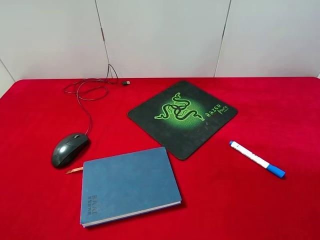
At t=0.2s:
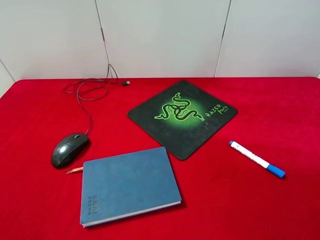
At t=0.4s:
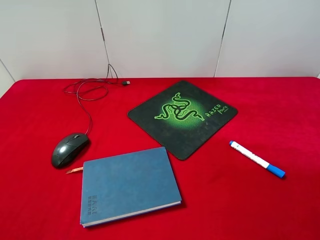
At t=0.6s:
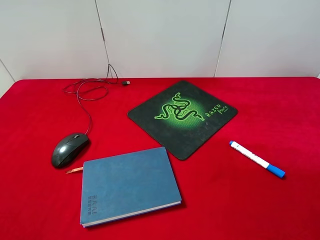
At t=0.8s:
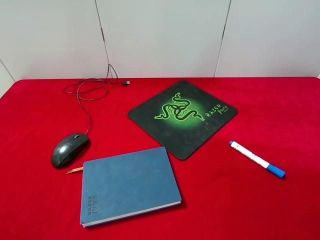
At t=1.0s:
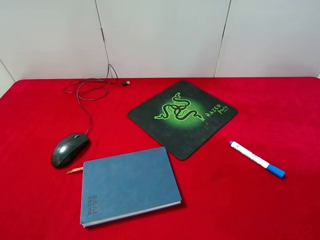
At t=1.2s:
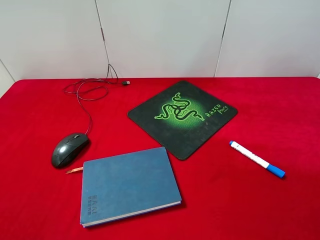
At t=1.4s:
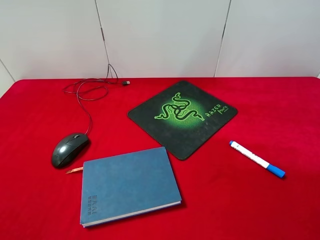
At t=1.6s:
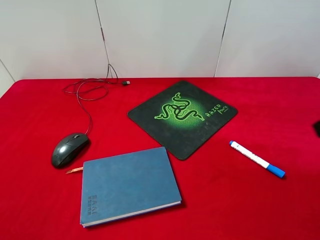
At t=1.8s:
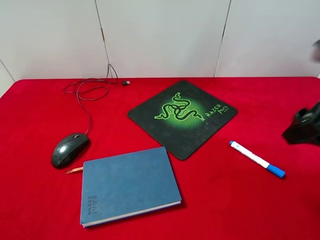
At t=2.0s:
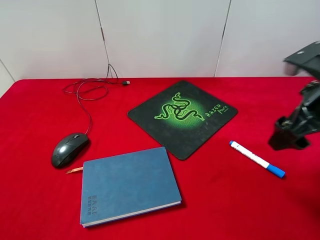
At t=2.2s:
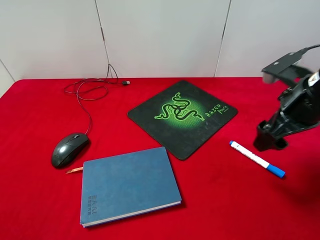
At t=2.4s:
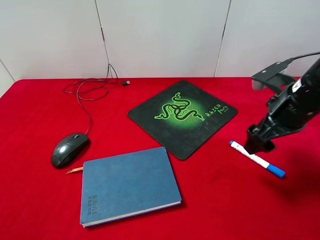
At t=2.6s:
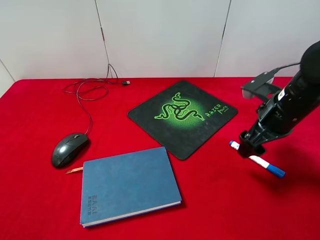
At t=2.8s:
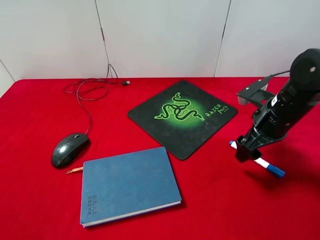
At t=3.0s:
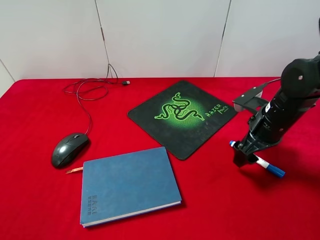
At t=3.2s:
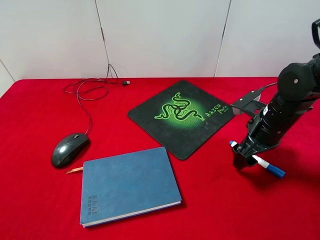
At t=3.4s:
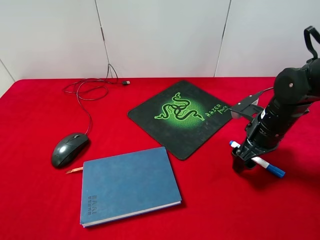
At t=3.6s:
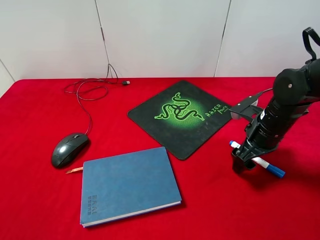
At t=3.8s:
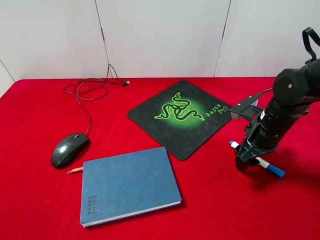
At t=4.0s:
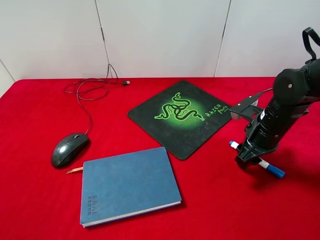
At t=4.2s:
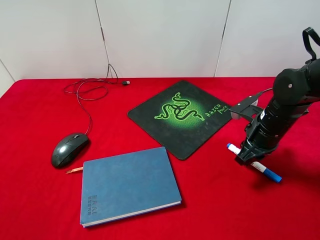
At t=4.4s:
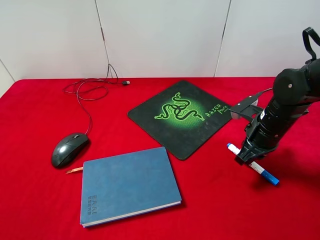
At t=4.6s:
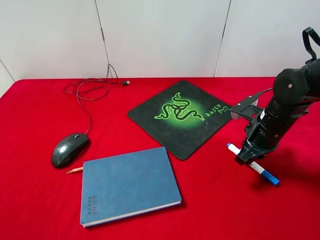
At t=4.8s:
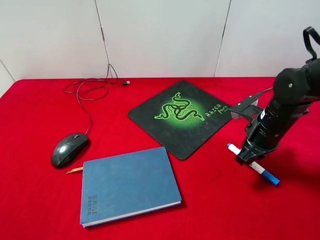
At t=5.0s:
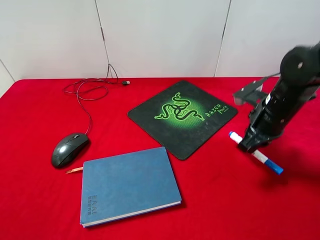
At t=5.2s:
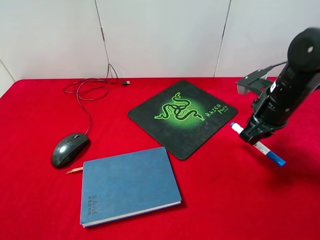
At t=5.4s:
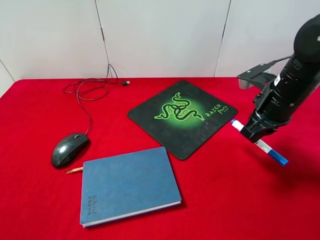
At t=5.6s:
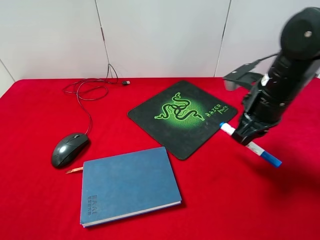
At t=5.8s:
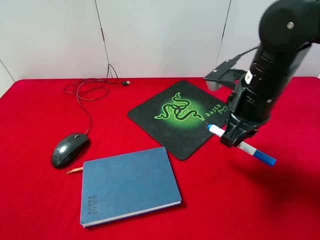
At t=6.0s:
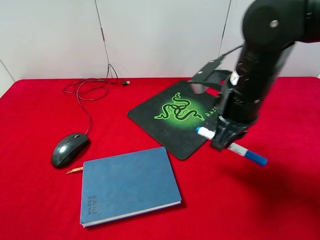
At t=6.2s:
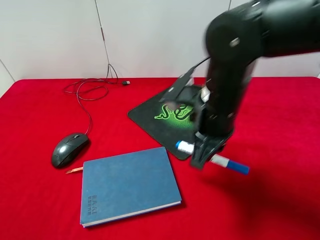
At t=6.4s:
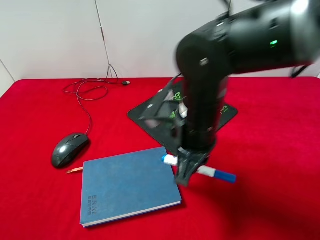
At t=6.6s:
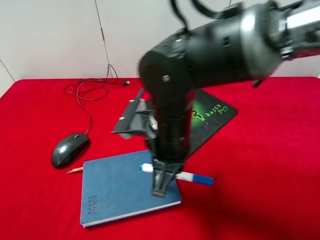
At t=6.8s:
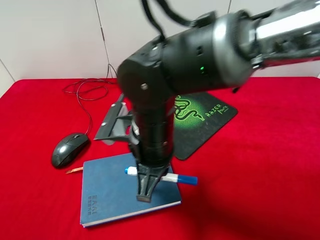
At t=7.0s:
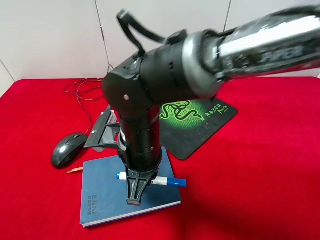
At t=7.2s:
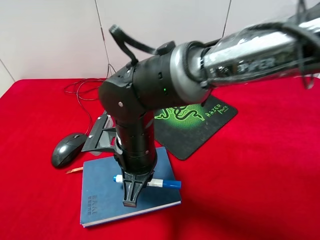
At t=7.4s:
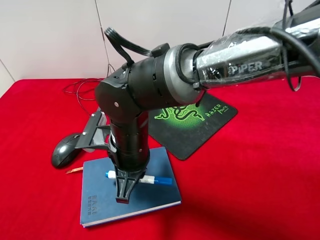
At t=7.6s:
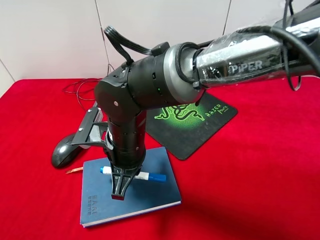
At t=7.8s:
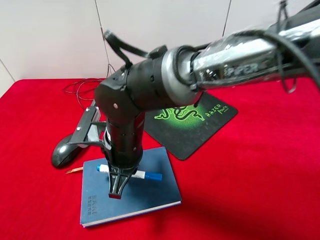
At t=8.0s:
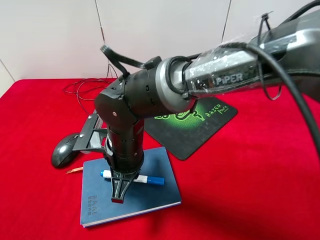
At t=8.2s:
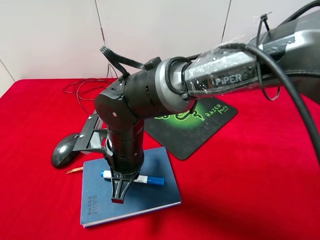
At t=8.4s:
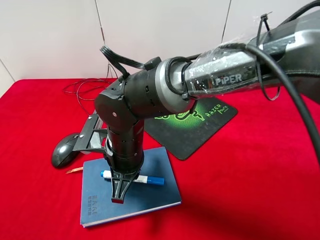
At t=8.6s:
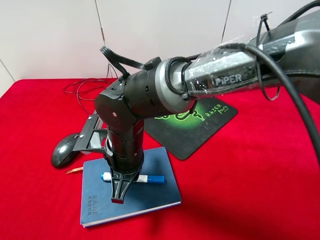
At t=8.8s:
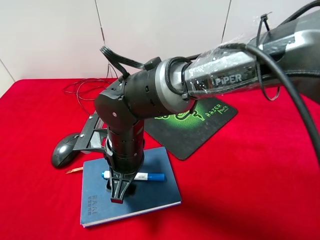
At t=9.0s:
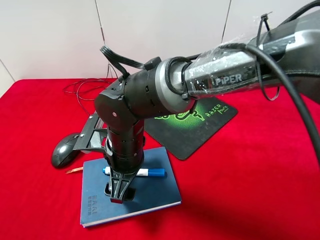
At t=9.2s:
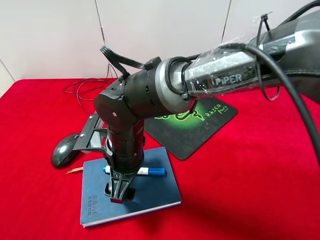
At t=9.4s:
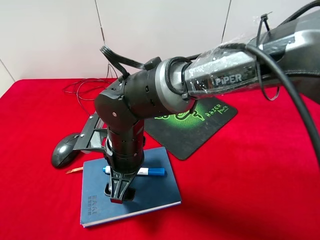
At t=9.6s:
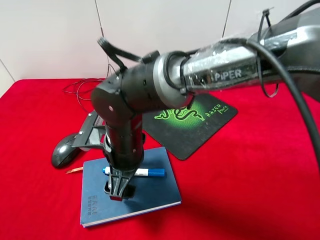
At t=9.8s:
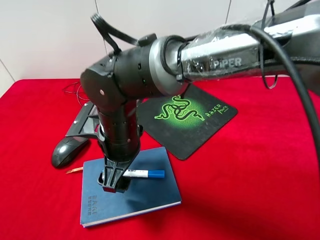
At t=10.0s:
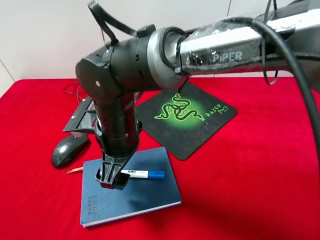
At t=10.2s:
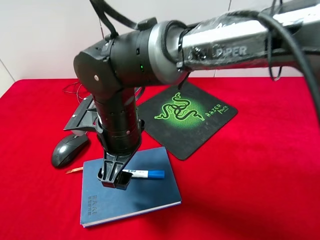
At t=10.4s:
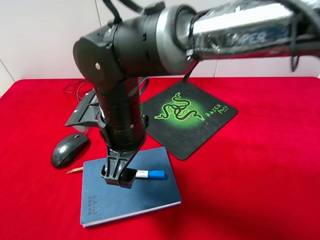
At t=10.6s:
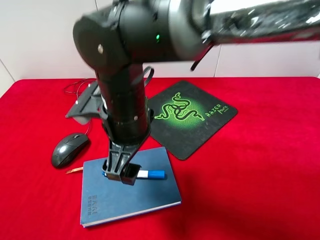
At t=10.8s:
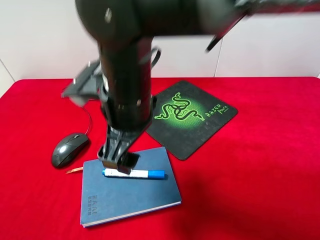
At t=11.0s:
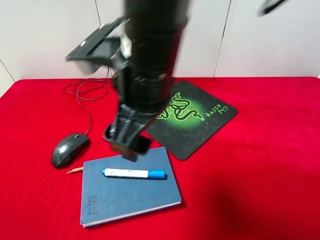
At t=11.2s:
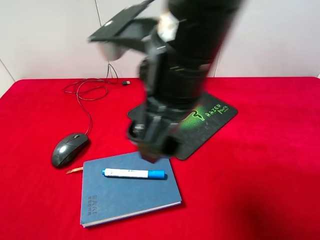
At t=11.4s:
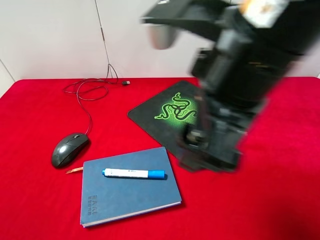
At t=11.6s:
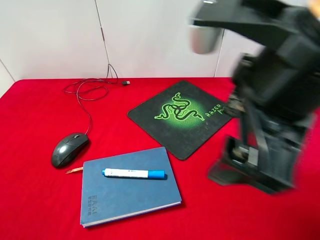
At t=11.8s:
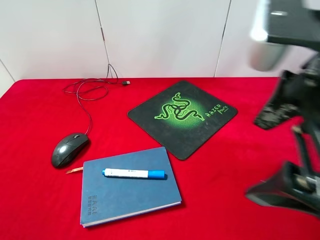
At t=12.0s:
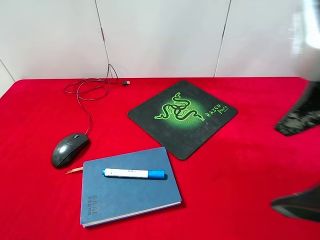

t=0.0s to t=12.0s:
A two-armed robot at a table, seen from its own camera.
Step, t=0.0s to t=5.2s: Pick up the marker pen with right gripper.
Step, t=5.4s to t=9.8s: Place the marker pen on the notebook with right gripper.
t=1.6s to t=3.0s: The right gripper heads downward and forward, covering roughly 20 cm.
t=3.0s to t=4.4s: The right gripper closes.
t=4.4s to t=6.0s: The right gripper travels to the left and upward by approximately 15 cm.
t=6.0s to t=7.6s: The right gripper travels to the left and downward by some 20 cm.
t=7.6s to t=9.0s: The right gripper opens.
t=9.0s to t=10.4s: The right gripper moves upward, approximately 5 cm.
t=10.4s to t=12.0s: The right gripper goes some 30 cm to the right, upward and backward.

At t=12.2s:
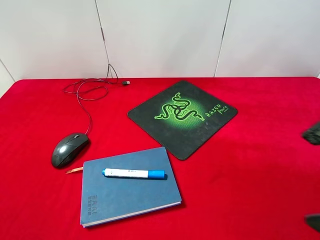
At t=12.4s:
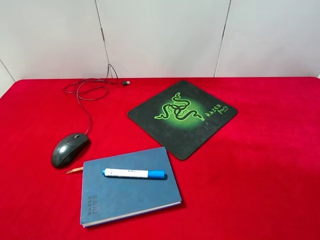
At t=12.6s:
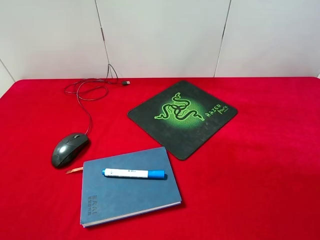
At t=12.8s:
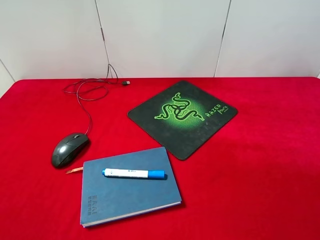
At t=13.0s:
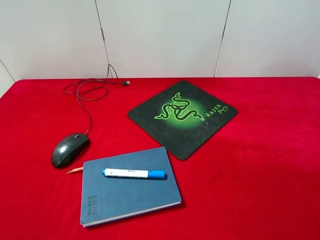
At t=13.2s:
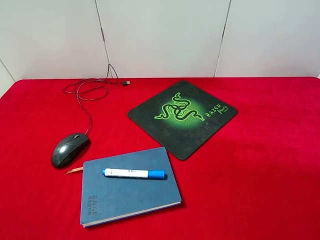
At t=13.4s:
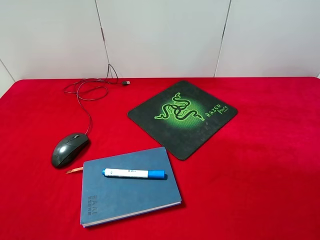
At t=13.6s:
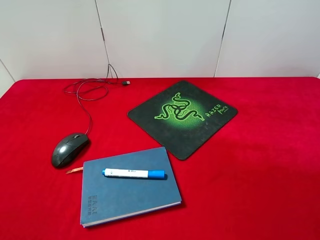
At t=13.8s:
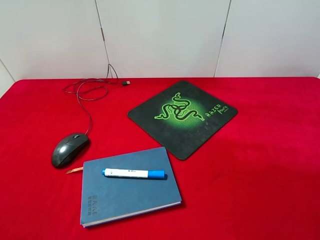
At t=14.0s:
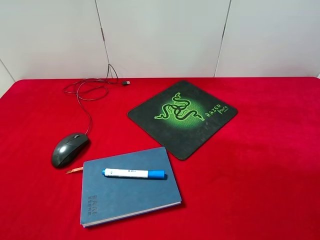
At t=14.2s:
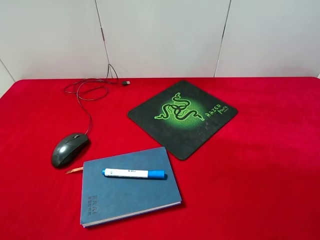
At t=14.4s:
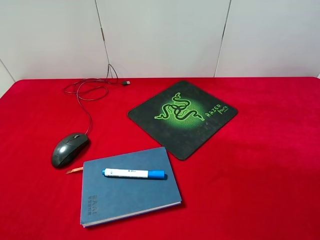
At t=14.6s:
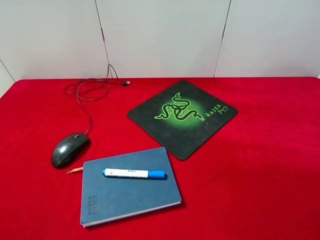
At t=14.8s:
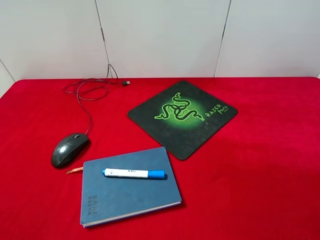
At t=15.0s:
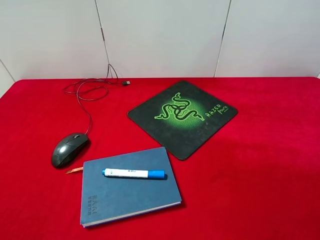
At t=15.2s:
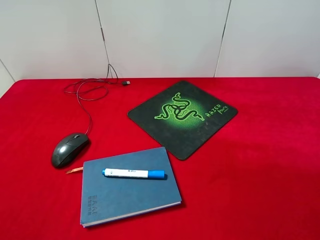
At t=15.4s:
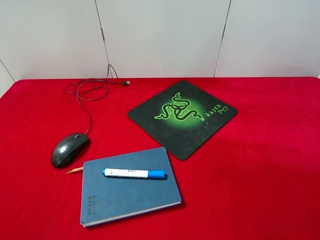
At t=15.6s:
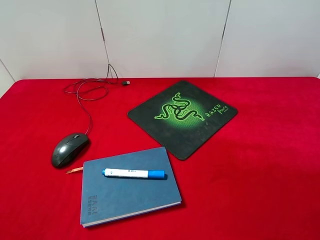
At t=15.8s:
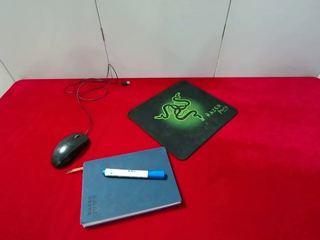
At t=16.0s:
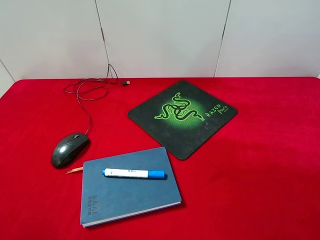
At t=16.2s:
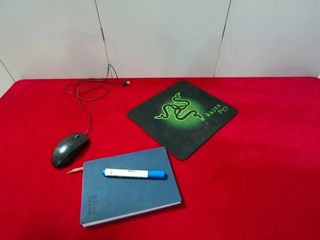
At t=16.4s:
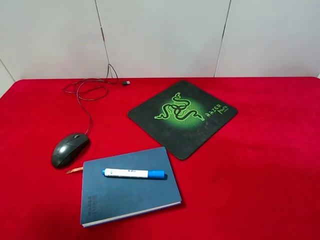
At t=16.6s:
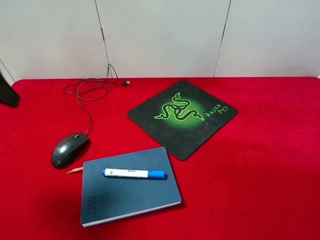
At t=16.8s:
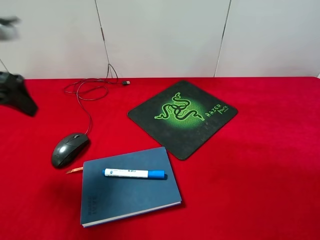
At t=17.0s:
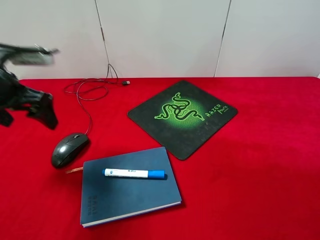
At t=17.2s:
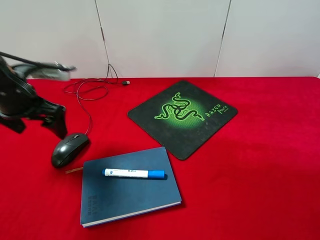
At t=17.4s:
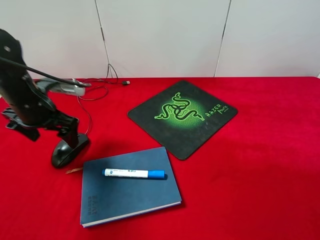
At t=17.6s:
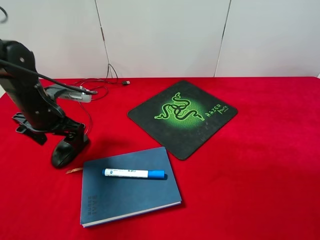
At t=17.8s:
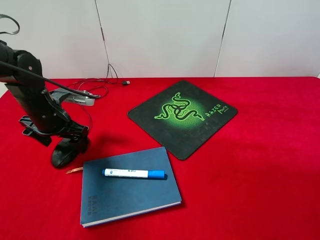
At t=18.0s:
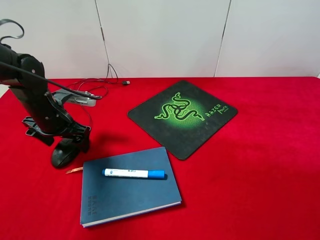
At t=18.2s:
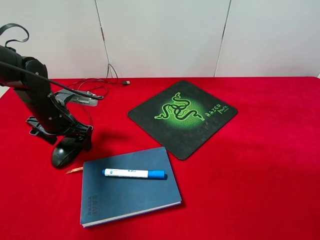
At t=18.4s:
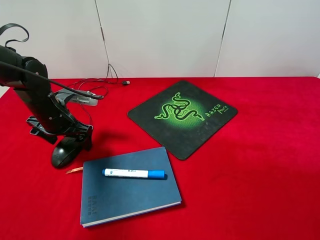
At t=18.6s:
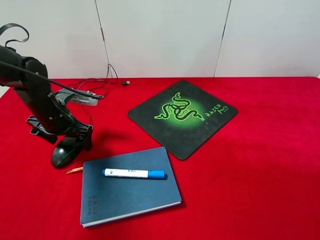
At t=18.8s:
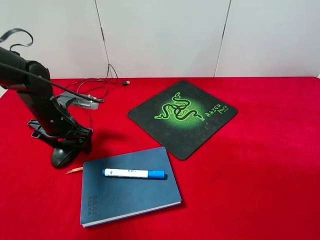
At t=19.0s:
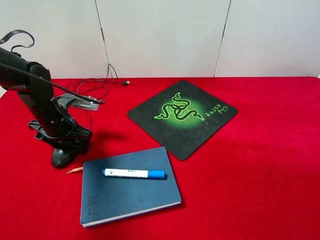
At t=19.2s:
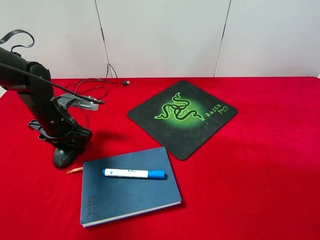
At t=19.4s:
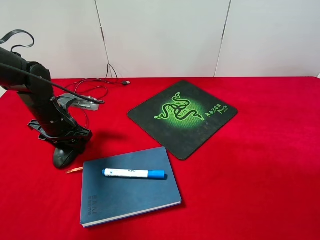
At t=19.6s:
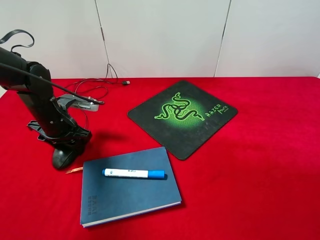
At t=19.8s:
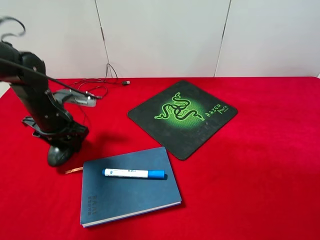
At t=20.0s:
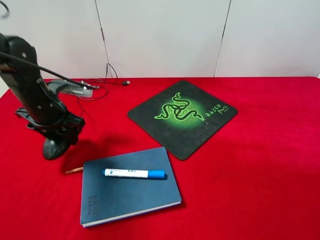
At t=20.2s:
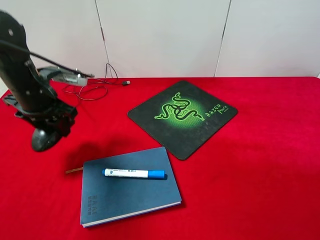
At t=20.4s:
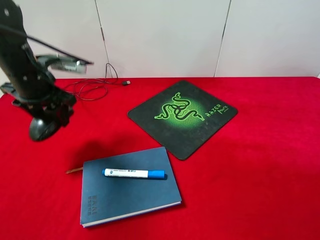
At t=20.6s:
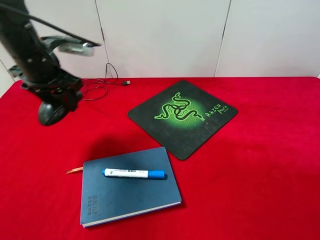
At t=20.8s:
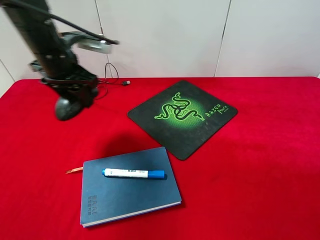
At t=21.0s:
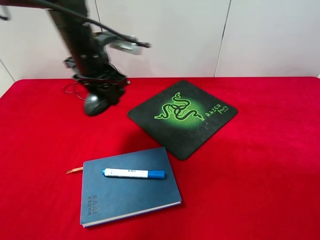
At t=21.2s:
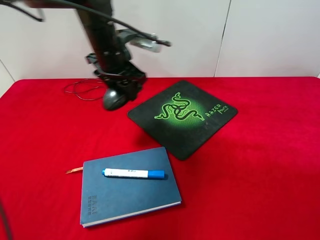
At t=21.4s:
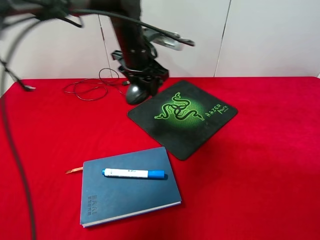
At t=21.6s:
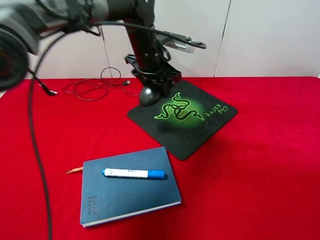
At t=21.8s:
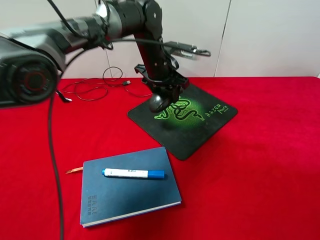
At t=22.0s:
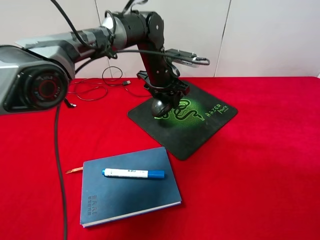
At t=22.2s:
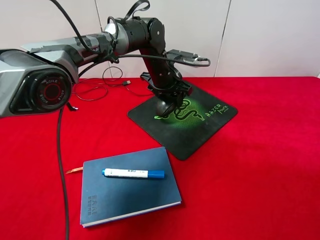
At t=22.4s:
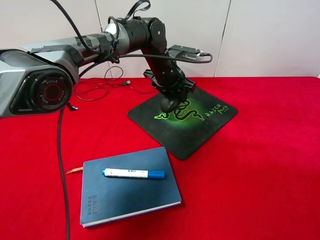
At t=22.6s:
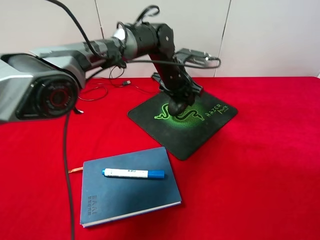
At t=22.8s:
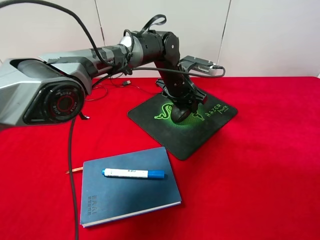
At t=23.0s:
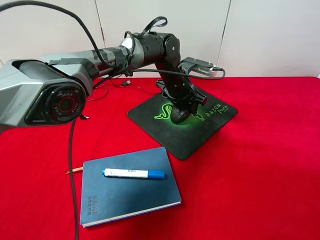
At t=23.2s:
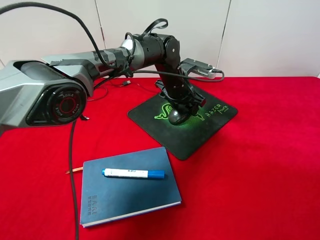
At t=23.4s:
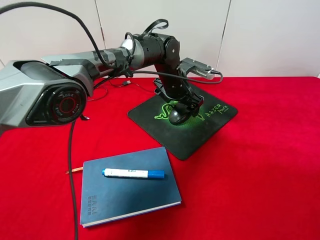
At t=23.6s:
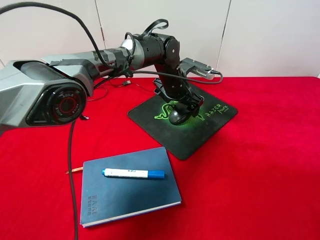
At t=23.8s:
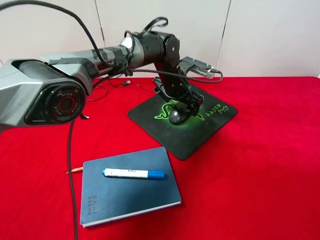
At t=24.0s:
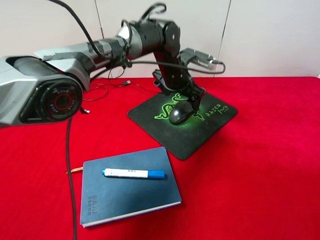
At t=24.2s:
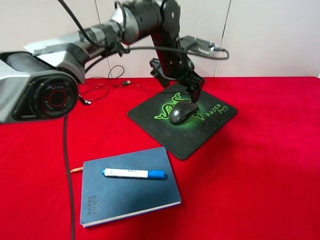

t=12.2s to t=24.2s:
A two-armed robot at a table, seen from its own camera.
Step, t=12.2s to t=20.0s: Pick up the mouse with left gripper.
Step, t=20.2s to t=24.0s: Place the mouse on the mouse pad with left gripper.
t=12.2s to t=13.8s: The right gripper is displaced to the right, backward and downward by some 10 cm.
t=13.8s to t=15.2s: The two grippers keep their place.
t=15.2s to t=16.6s: The left gripper goes approximately 20 cm forward.
t=16.6s to t=18.2s: The left gripper goes some 20 cm downward and forward.
t=18.2s to t=19.8s: The left gripper closes up.
t=19.8s to t=21.2s: The left gripper is displaced to the right, upward and forward by approximately 20 cm.
t=21.2s to t=22.6s: The left gripper heads to the right, downward and forward, covering about 15 cm.
t=22.6s to t=24.2s: The left gripper moves upward, about 5 cm, and opens its fingers.
